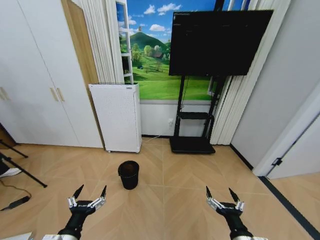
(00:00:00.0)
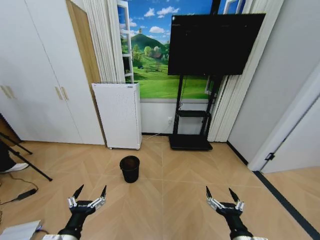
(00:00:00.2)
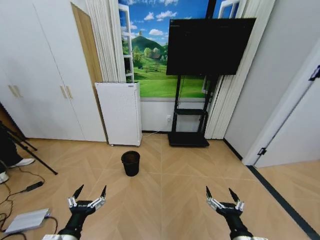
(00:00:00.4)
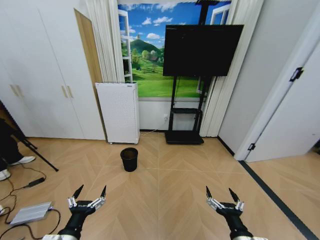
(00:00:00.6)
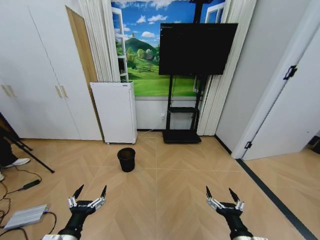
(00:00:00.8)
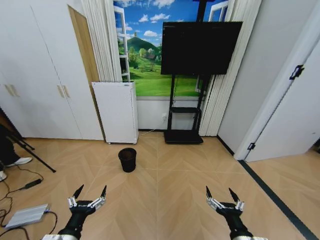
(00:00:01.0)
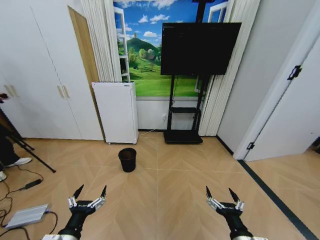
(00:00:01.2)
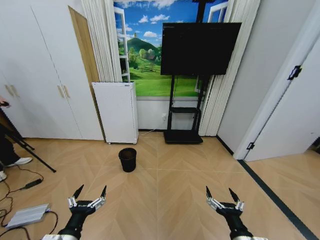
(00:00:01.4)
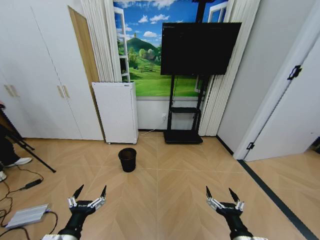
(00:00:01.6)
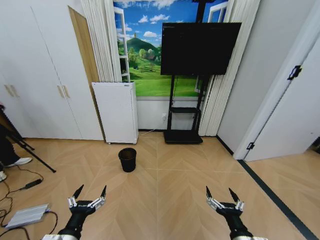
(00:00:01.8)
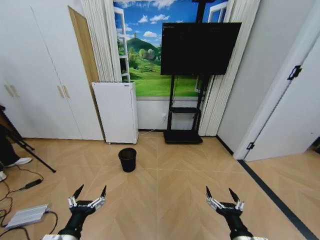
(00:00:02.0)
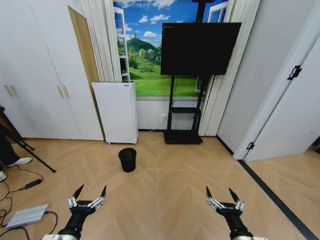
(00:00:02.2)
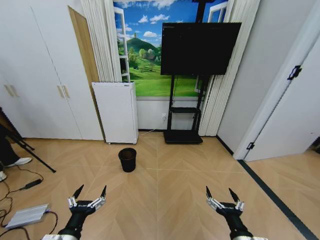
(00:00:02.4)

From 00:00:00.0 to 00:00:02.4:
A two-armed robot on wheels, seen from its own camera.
Task of the whole recording: Pick up the trash bin and place the garbage on the floor into it.
From 00:00:01.2 to 00:00:02.4: Neither gripper changes place.
